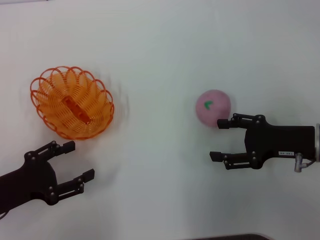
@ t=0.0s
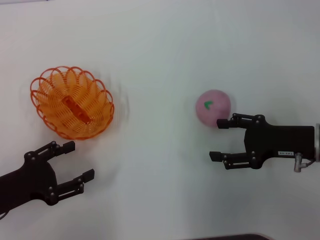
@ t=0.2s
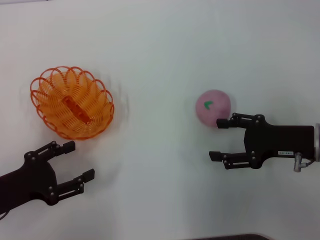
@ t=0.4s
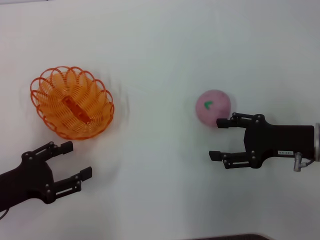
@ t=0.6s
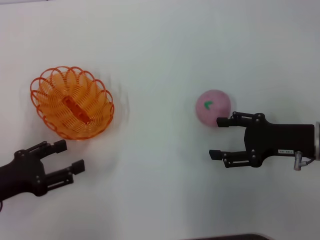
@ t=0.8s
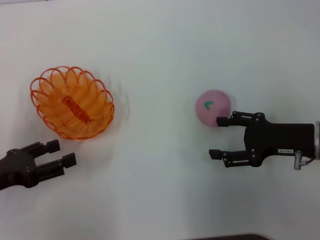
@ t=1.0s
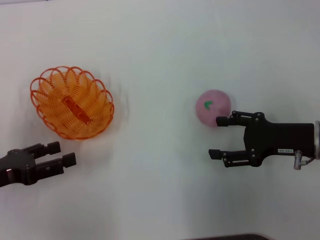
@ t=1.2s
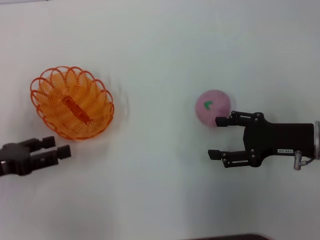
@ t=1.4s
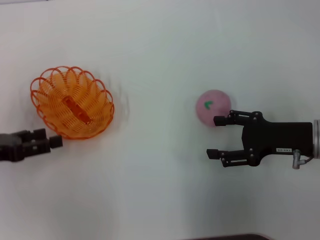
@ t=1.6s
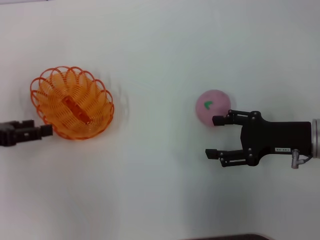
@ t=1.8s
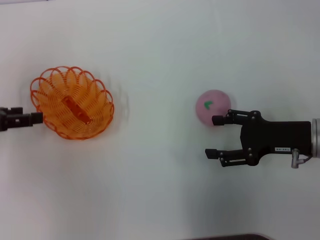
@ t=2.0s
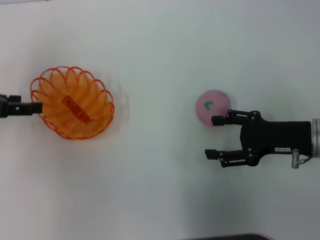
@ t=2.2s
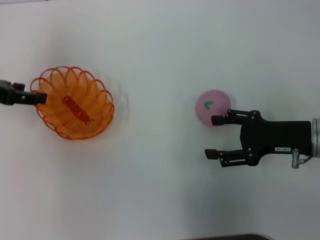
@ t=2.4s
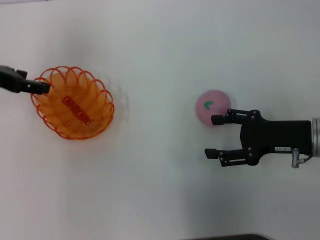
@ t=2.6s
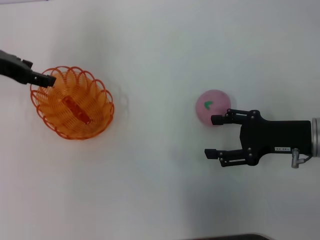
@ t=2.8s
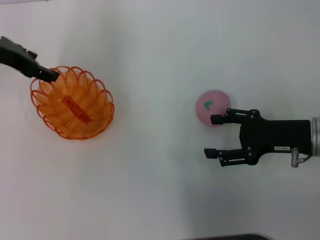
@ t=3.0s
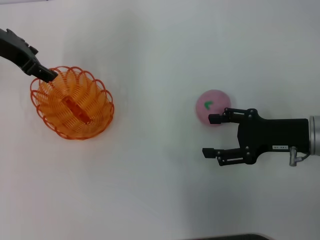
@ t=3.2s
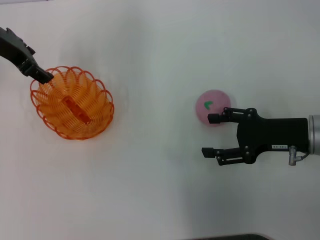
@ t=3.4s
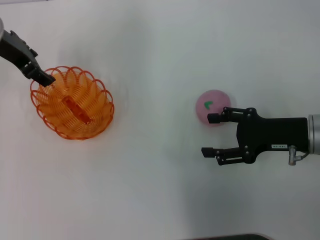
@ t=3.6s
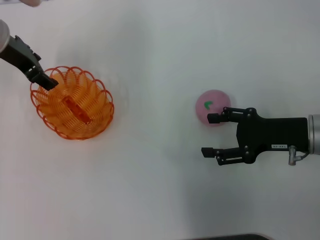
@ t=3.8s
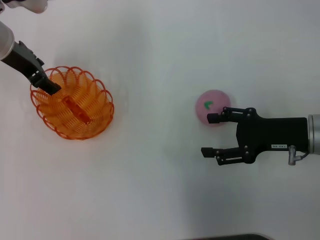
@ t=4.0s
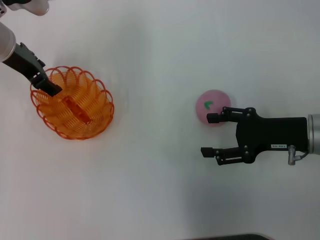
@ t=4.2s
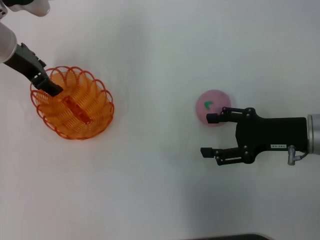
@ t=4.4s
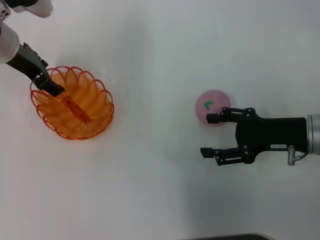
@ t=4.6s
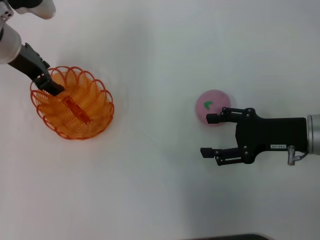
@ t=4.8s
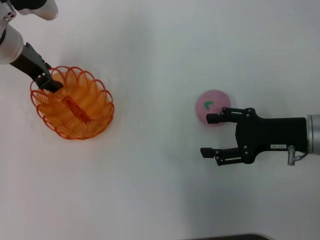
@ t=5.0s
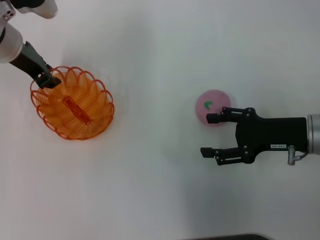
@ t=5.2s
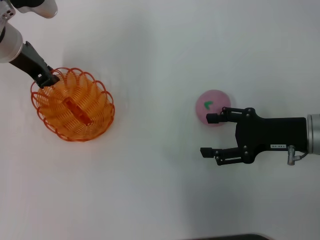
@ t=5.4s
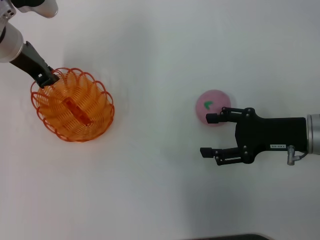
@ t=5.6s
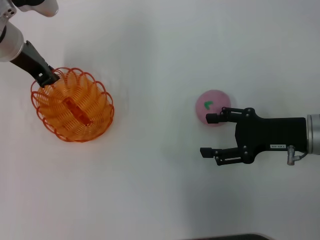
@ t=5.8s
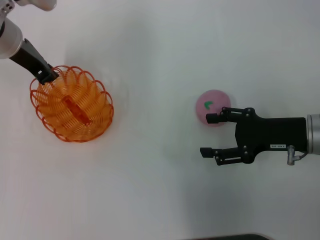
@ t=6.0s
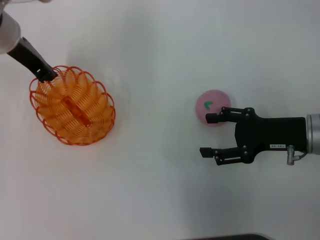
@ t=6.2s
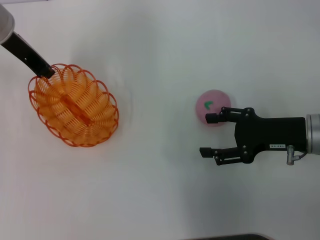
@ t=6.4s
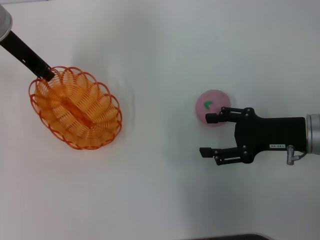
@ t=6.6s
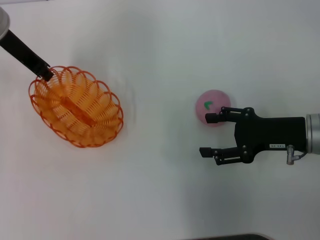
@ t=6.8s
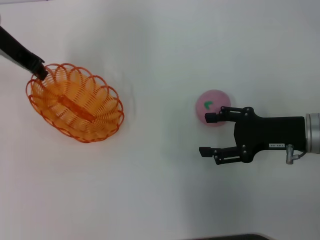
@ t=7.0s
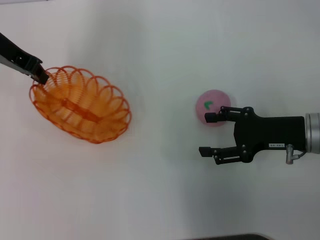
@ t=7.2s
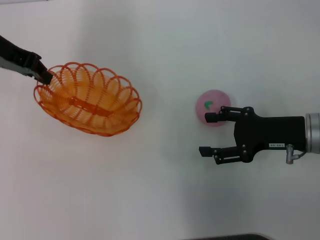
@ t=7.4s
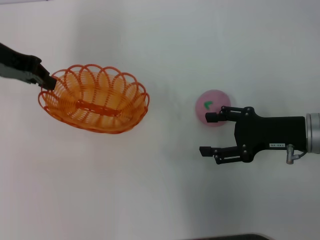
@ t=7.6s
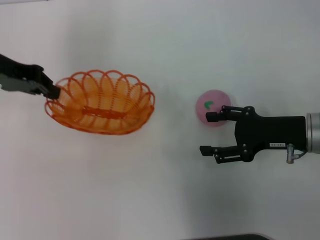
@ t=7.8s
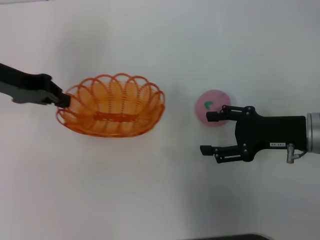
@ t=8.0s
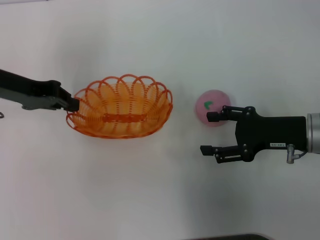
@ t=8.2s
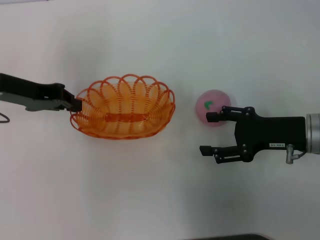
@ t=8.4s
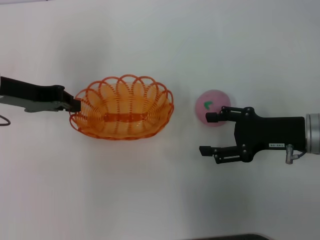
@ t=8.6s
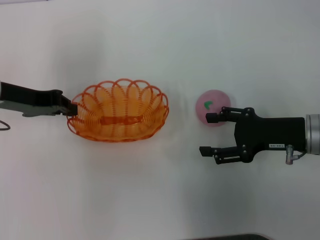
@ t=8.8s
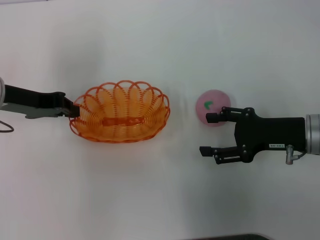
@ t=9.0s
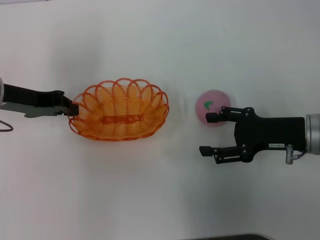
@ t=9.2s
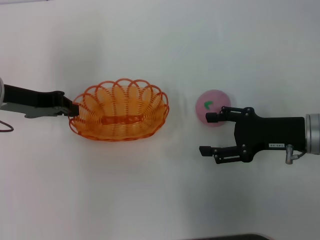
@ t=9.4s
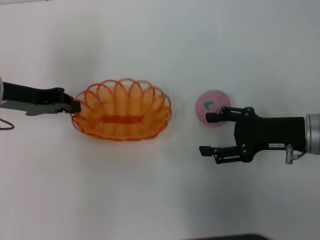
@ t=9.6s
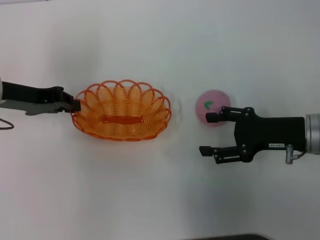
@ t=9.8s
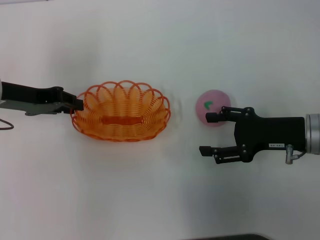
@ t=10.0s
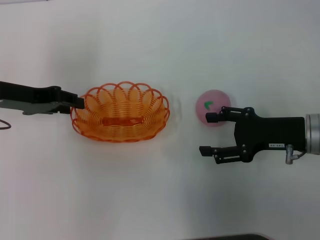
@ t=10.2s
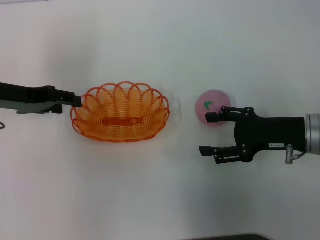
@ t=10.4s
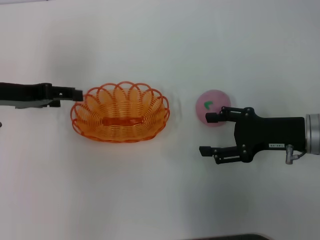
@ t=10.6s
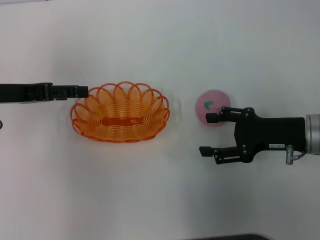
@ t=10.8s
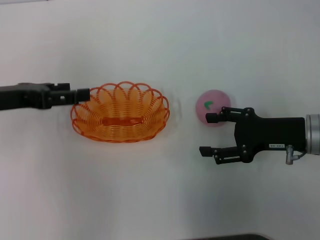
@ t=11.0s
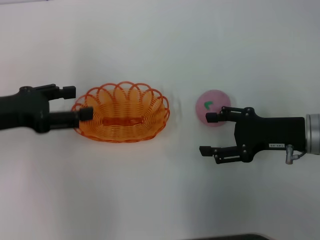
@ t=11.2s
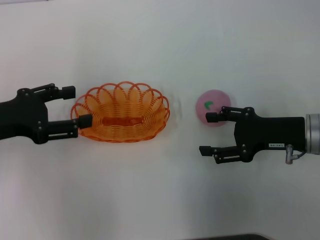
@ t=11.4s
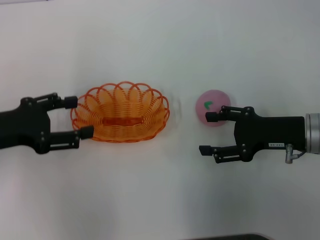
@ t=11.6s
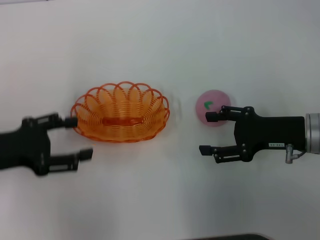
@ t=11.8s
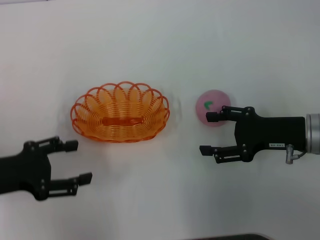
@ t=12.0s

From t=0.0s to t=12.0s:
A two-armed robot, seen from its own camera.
Step, from t=0.0s to t=6.0s: Pick up the basket with the left gripper.
Step, from t=6.4s to t=10.8s: Place the basket in the center of view with the left gripper.
From t=0.0s to t=1.6s: The left gripper heads forward, covering approximately 5 cm.
From t=1.6s to t=3.0s: The left gripper moves forward, upward and to the right, approximately 20 cm.
From t=3.0s to t=4.4s: The grippers move only a little.
From t=4.4s to t=6.0s: The left gripper closes up.
From t=6.0s to t=7.6s: The left gripper shifts some 5 cm to the left.
From t=7.6s to t=9.0s: The left gripper goes some 10 cm downward and backward.
From t=9.0s to t=10.4s: The left gripper opens.
From t=10.4s to t=12.0s: The left gripper goes some 10 cm backward, and opens its fingers.

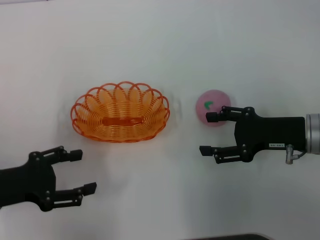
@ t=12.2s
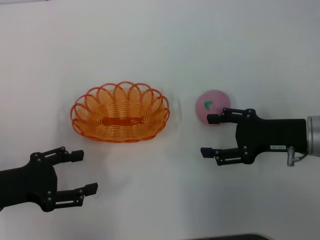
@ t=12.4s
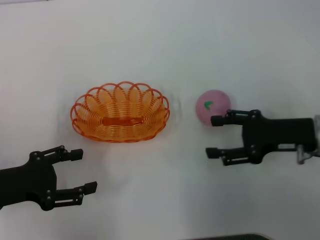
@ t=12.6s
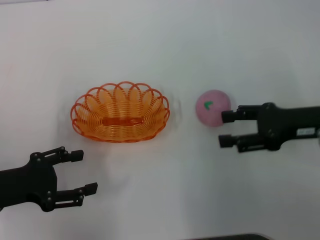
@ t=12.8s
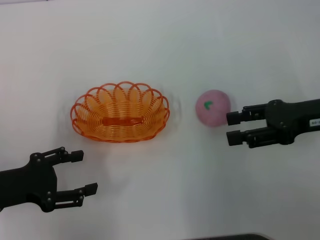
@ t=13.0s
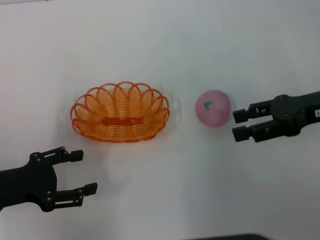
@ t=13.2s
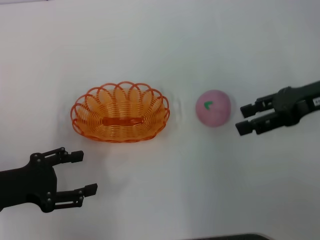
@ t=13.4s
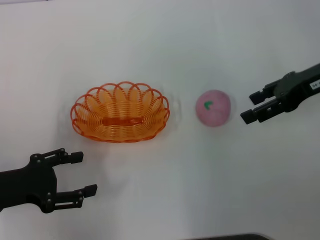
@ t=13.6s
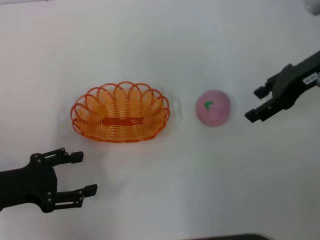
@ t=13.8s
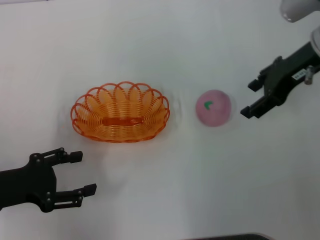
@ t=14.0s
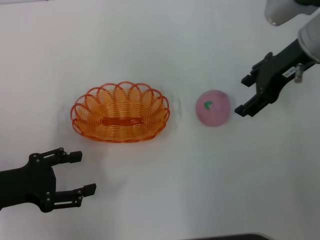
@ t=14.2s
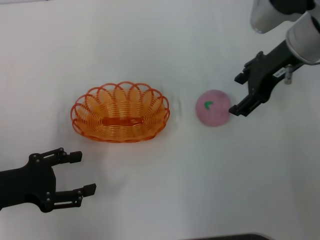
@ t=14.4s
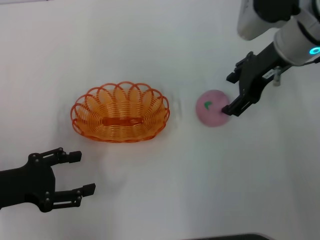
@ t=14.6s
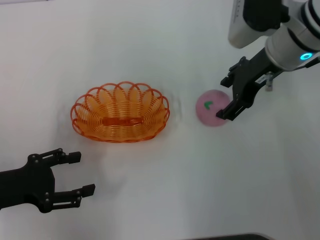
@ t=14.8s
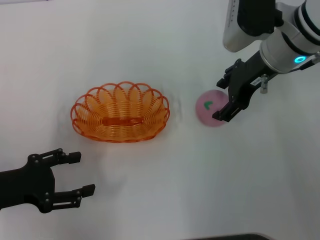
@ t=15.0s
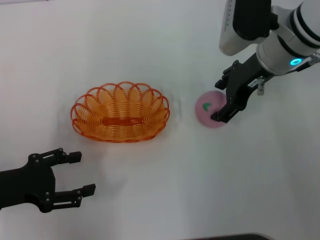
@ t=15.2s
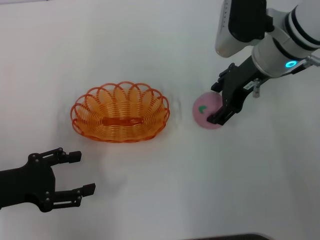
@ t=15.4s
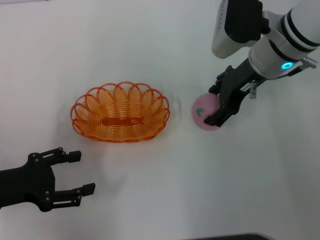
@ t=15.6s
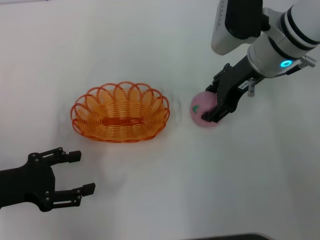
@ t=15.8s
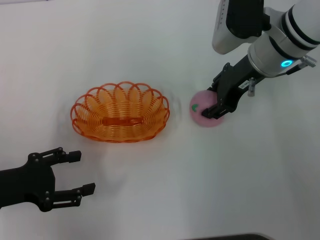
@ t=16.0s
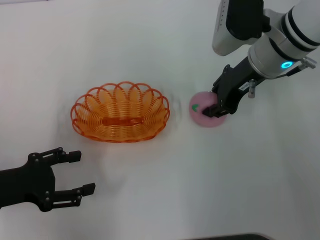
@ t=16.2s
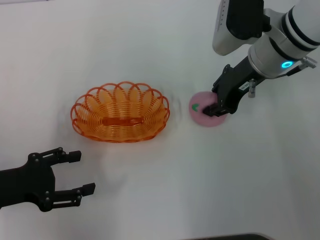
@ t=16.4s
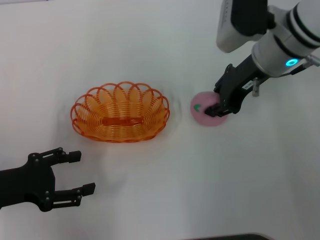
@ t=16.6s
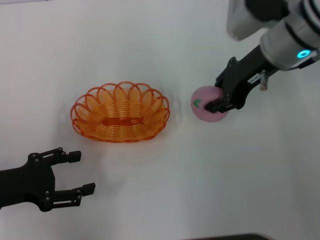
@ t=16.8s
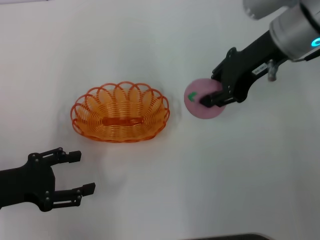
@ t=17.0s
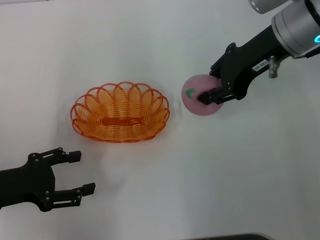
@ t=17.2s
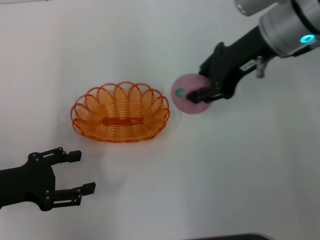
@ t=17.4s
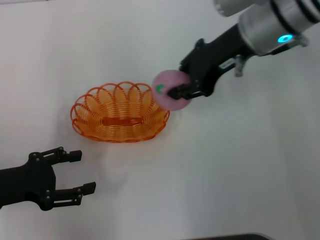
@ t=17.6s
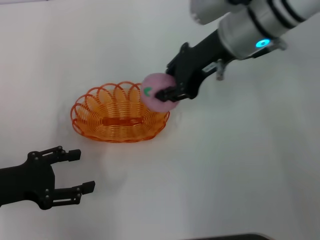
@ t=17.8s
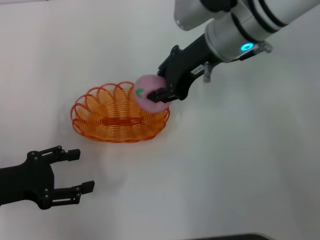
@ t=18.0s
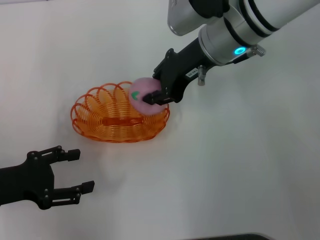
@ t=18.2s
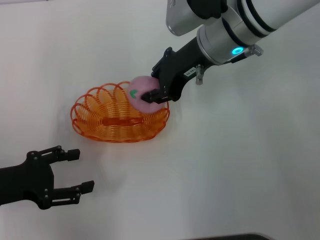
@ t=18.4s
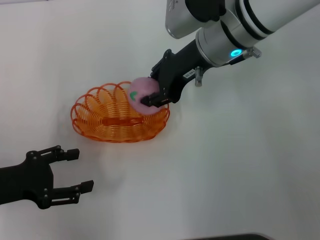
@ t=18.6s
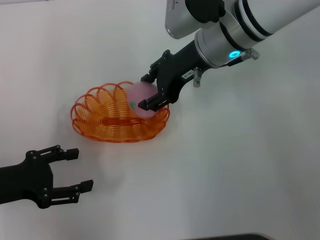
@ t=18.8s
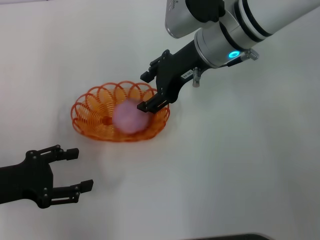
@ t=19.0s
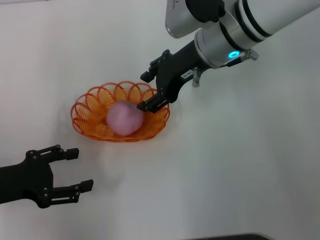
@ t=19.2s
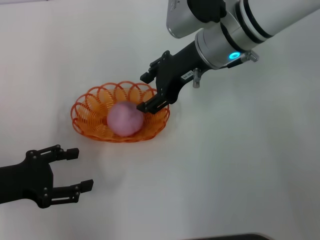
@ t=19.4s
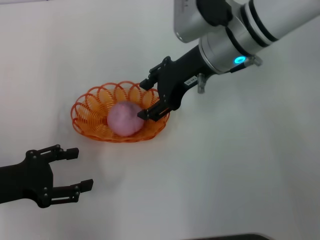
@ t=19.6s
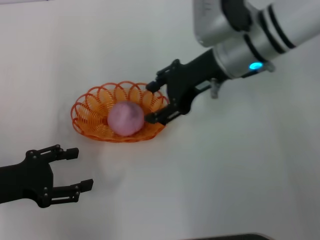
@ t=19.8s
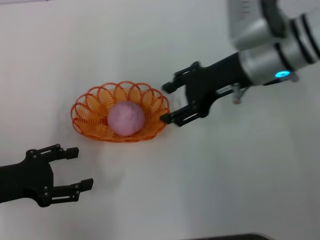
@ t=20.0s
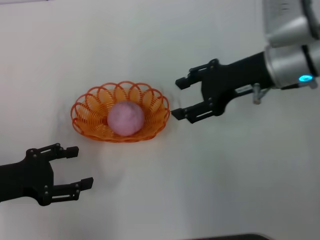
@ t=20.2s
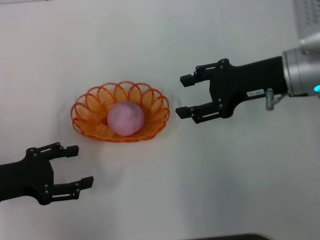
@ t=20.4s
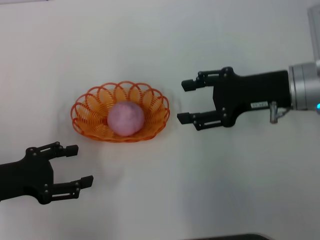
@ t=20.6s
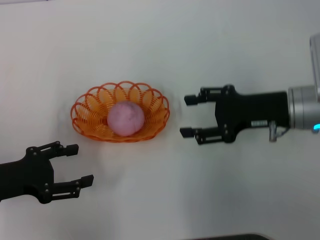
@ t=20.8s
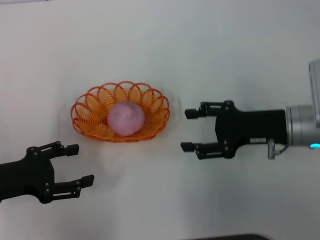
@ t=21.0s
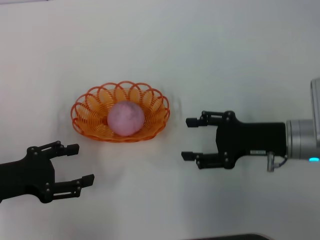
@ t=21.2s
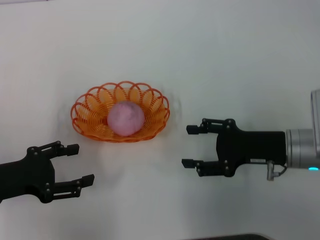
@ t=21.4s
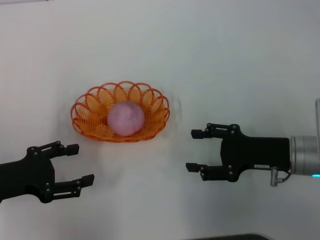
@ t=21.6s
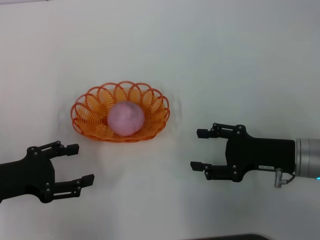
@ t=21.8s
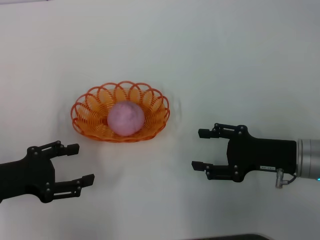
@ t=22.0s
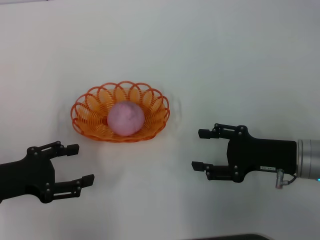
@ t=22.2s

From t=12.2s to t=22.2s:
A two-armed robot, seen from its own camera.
Step, from t=12.2s to t=17.2s: Pick up the peach with the right gripper.
Step, from t=17.4s to t=19.8s: Place the peach into the basket with the right gripper.
From t=12.2s to t=13.6s: The right gripper moves upward and forward, some 15 cm.
From t=13.6s to t=15.0s: The right gripper is displaced to the left by some 10 cm.
From t=15.0s to t=16.4s: The right gripper closes up.
From t=16.4s to t=18.0s: The right gripper heads to the left, covering approximately 5 cm.
From t=18.0s to t=19.4s: The right gripper opens its fingers.
From t=19.4s to t=20.8s: The right gripper travels to the right, backward and downward by some 15 cm.
From t=20.8s to t=22.2s: The right gripper goes approximately 10 cm downward and backward.
